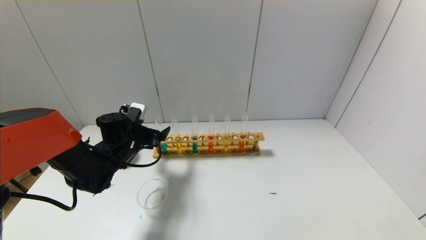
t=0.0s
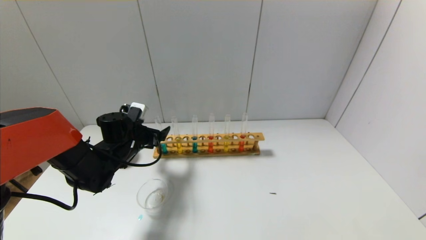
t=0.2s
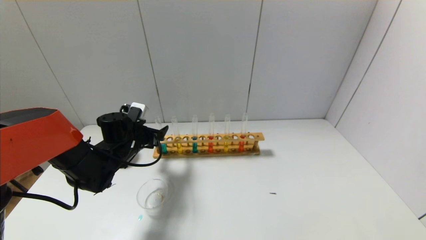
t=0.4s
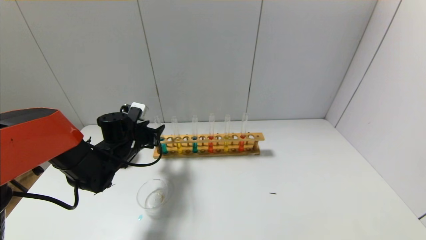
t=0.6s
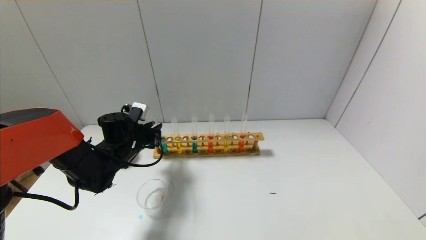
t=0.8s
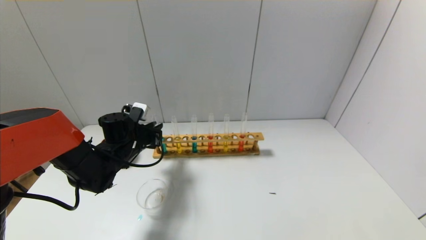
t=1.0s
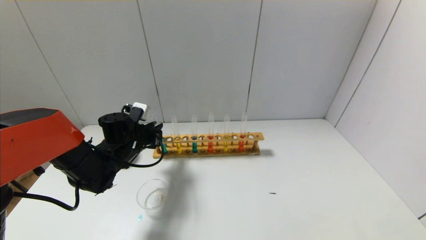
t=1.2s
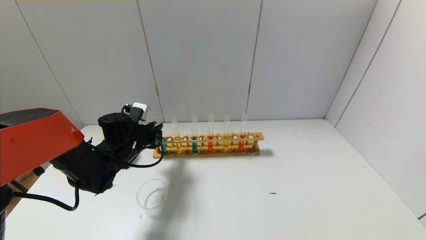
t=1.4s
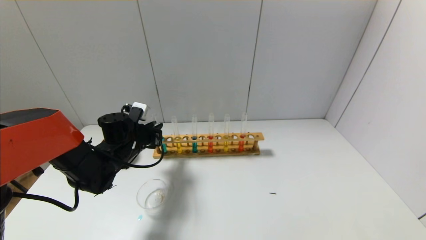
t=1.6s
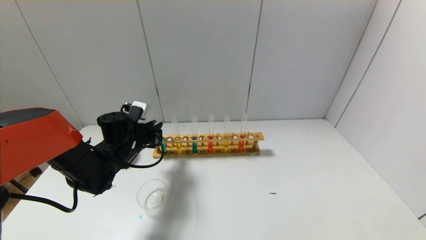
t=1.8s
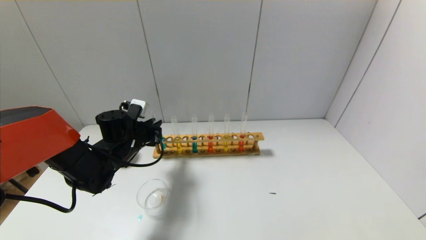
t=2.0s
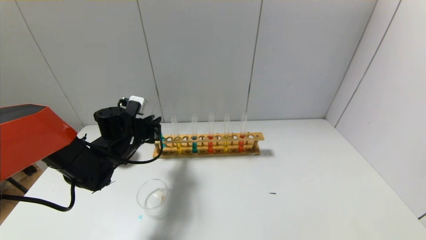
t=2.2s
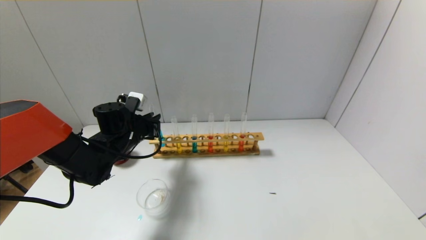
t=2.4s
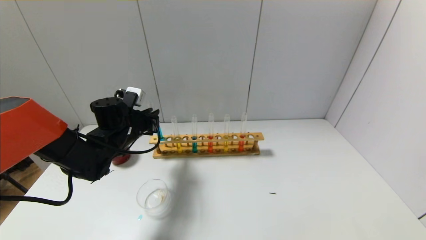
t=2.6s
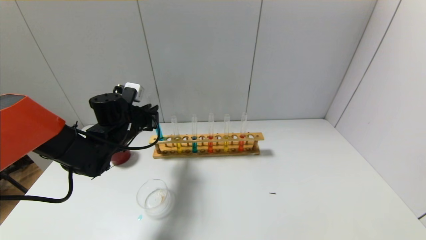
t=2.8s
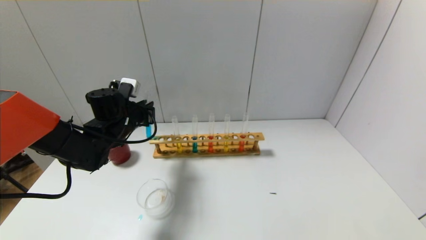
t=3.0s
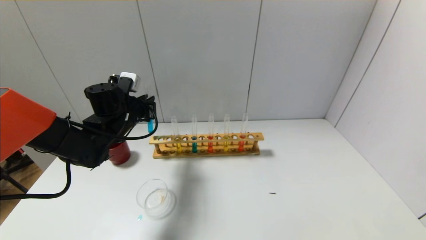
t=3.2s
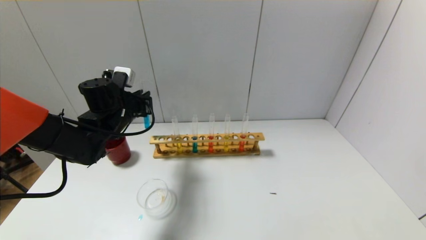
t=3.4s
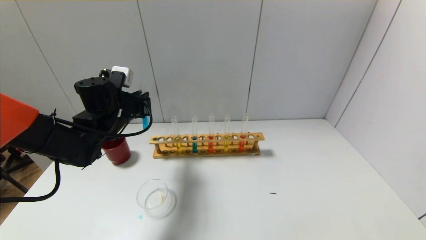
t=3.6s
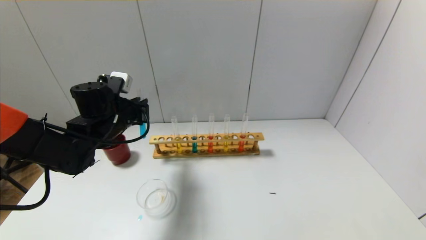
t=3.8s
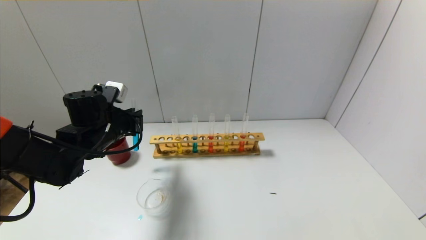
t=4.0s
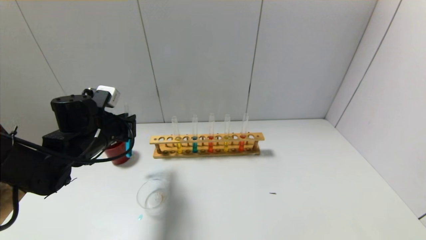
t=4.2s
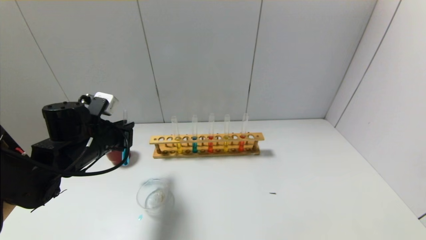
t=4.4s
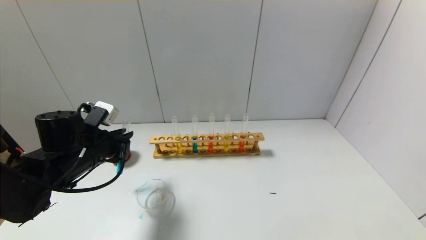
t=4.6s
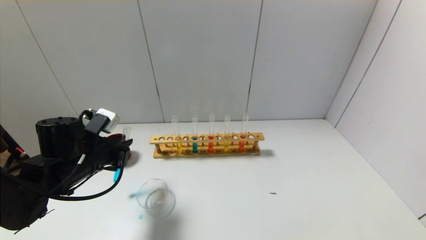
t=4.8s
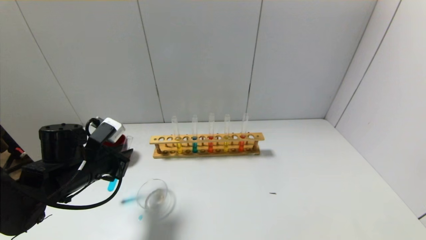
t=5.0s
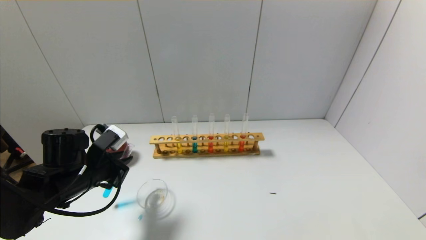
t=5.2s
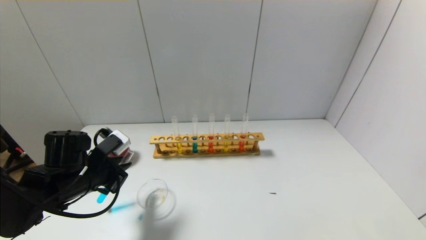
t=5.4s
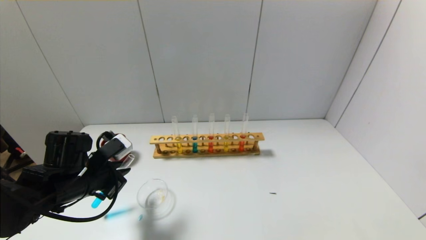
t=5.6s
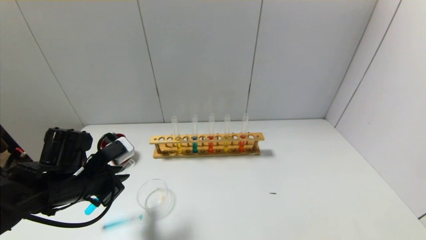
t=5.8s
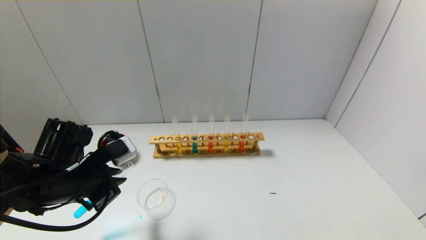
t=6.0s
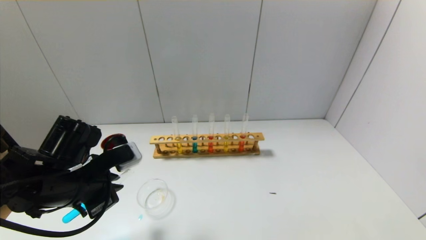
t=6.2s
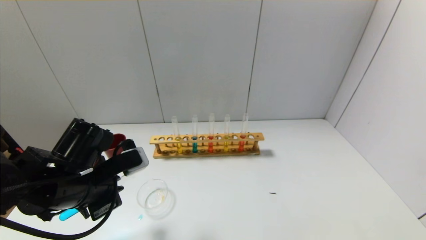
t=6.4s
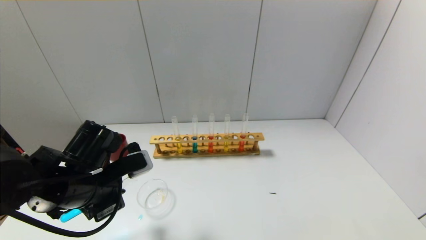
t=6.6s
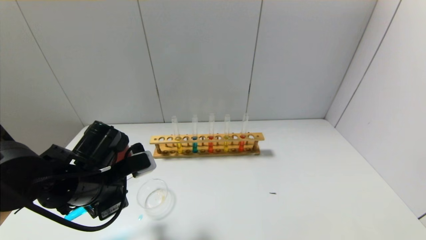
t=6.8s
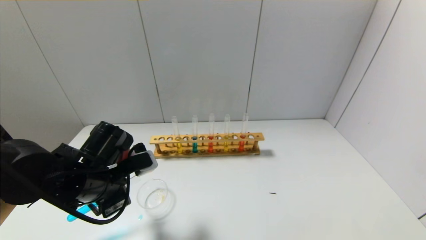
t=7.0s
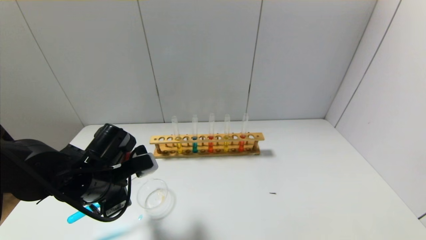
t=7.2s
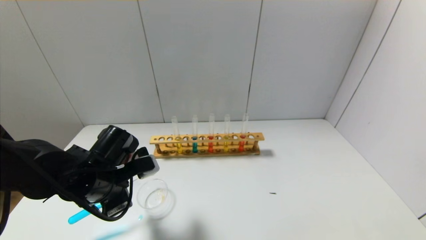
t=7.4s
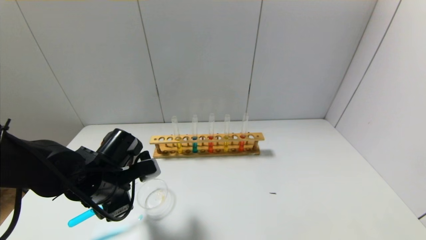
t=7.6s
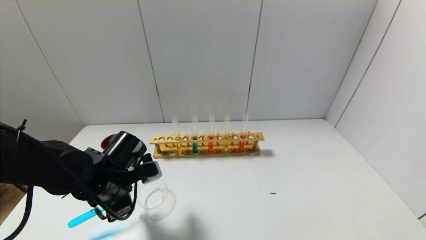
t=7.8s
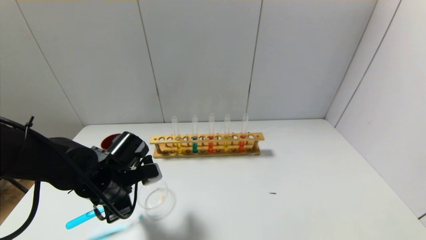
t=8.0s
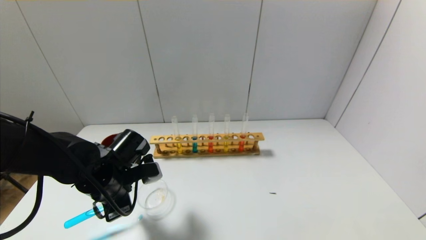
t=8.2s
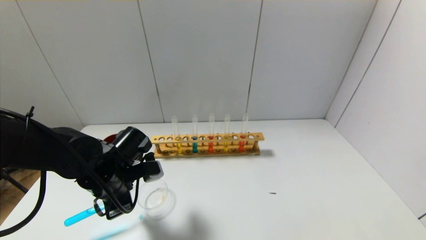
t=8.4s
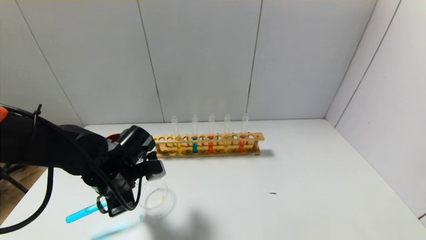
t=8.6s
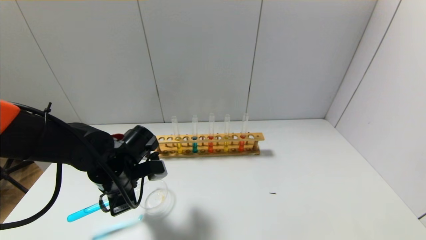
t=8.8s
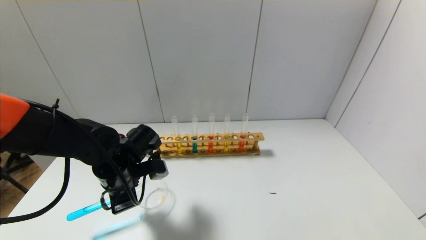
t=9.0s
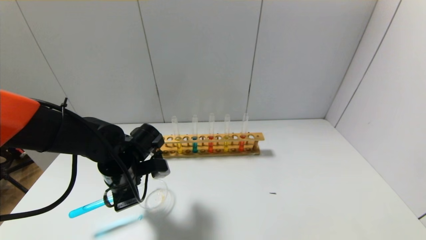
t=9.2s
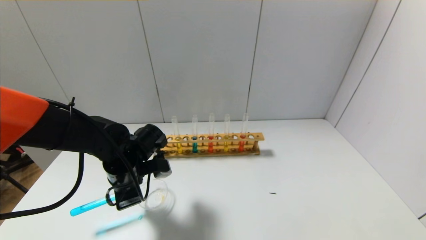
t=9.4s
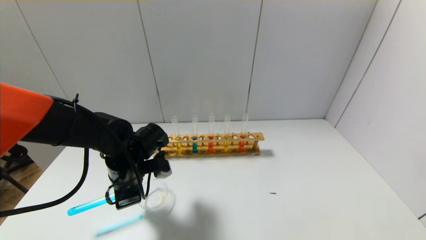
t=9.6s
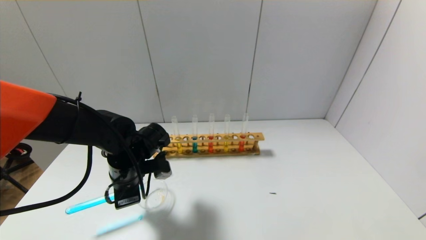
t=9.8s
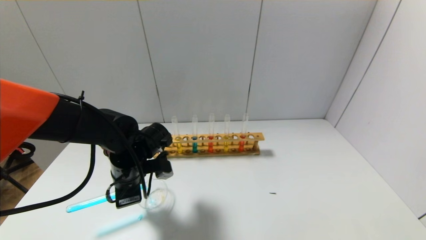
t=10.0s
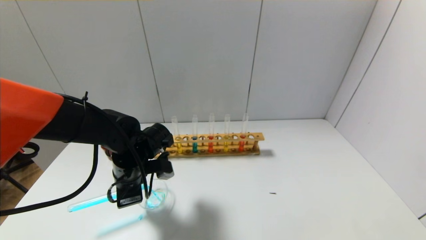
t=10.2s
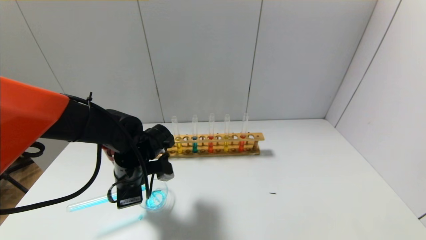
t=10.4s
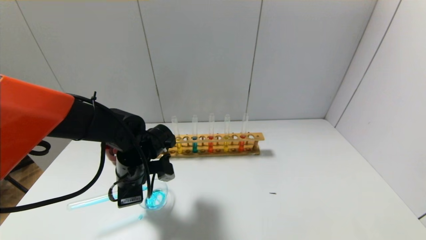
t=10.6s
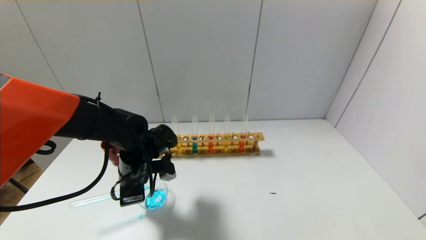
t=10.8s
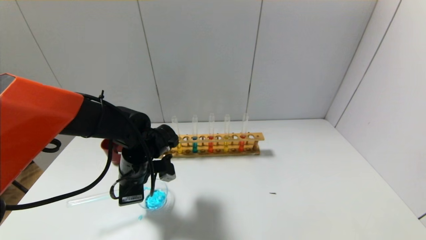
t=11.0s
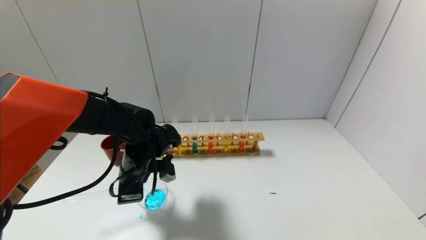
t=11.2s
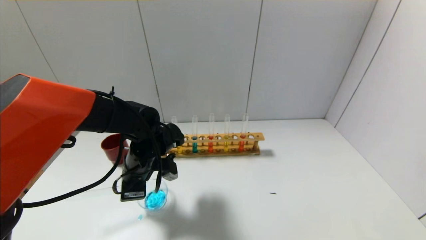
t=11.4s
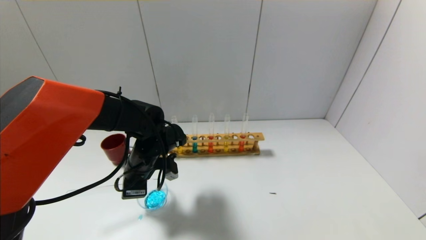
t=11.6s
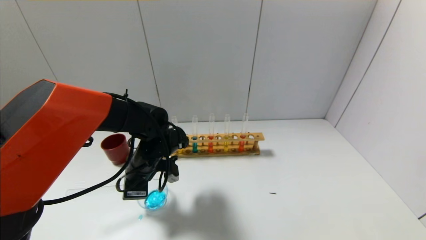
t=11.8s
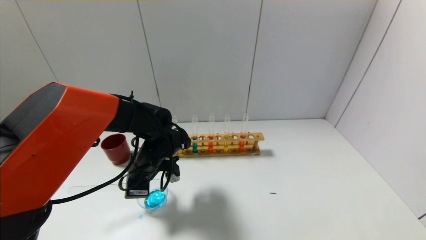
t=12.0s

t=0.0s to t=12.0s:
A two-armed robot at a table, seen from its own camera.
t=0.0s to t=1.6s: The left gripper closes up.
t=1.6s to t=3.0s: The left gripper goes roughly 5 cm upward.
t=3.0s to t=4.4s: The left gripper shifts roughly 10 cm backward.
t=4.4s to t=6.0s: The left gripper heads backward, covering roughly 10 cm.
t=6.0s to t=7.6s: The left gripper shifts by about 5 cm.
t=7.6s to t=9.0s: The grippers move only a little.
t=9.0s to t=10.4s: The grippers move only a little.
t=10.4s to t=12.0s: The grippers stay close to where they were, moving slightly.

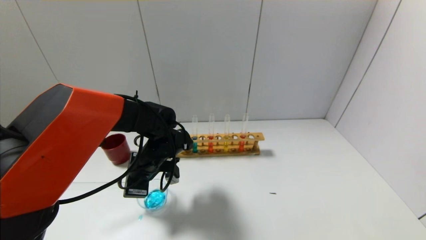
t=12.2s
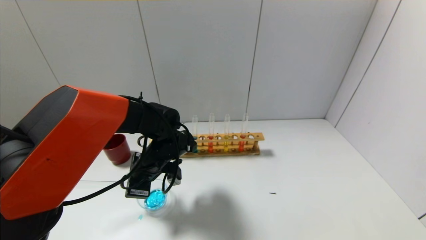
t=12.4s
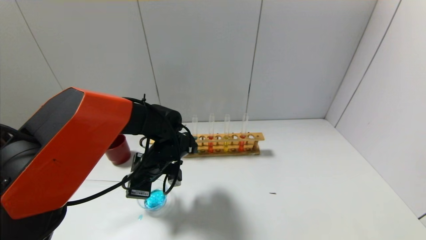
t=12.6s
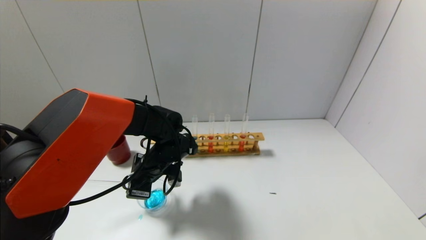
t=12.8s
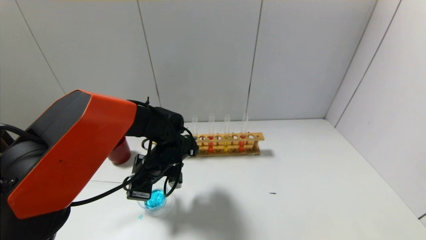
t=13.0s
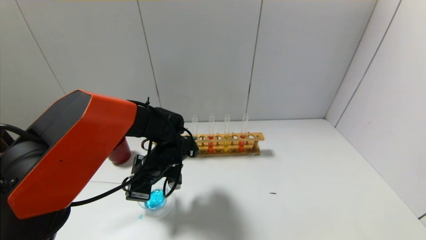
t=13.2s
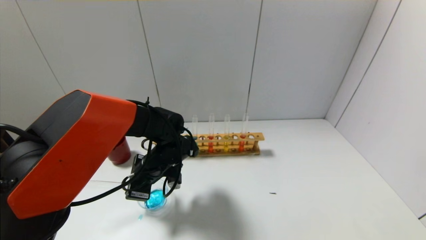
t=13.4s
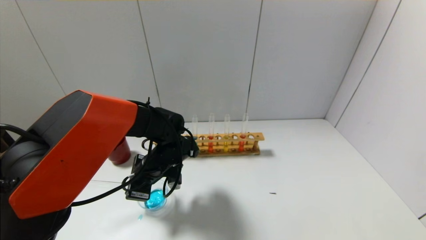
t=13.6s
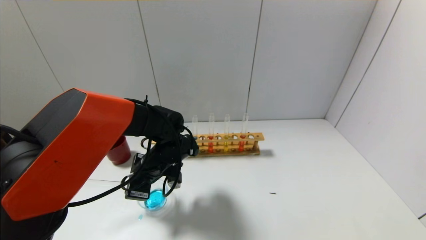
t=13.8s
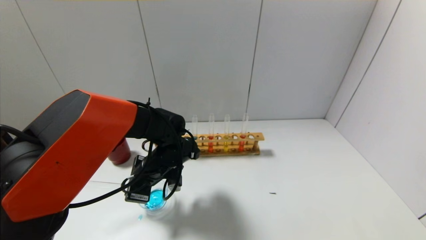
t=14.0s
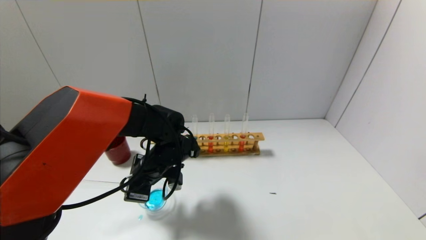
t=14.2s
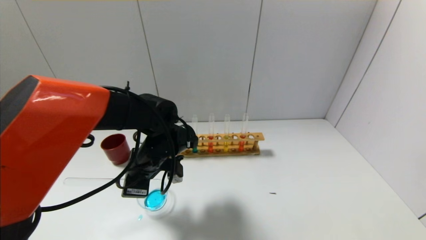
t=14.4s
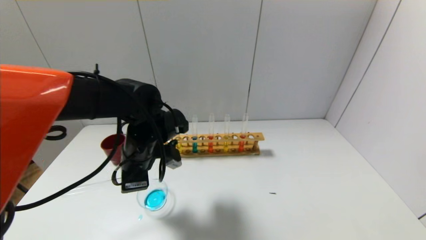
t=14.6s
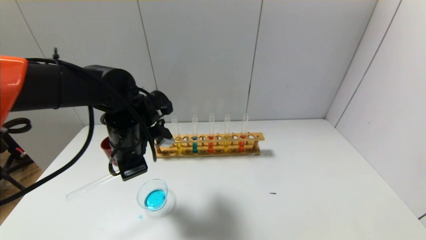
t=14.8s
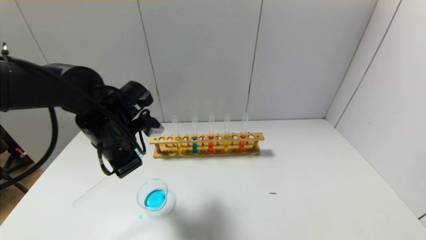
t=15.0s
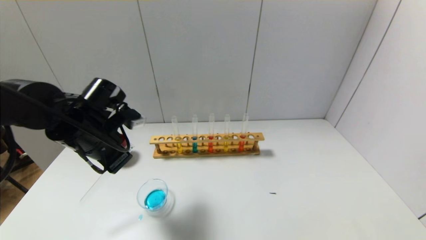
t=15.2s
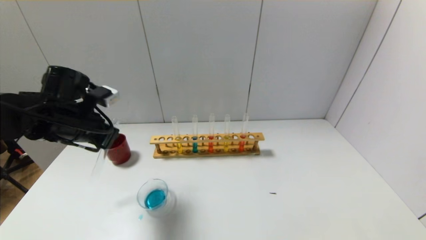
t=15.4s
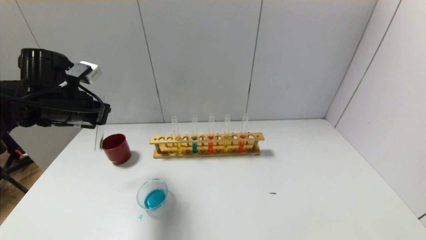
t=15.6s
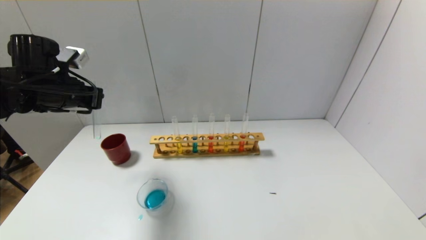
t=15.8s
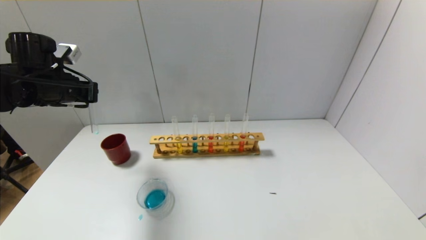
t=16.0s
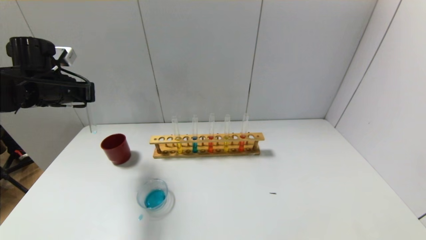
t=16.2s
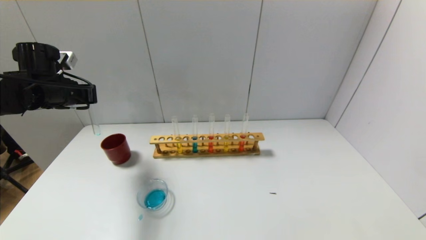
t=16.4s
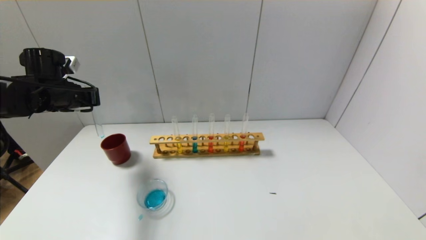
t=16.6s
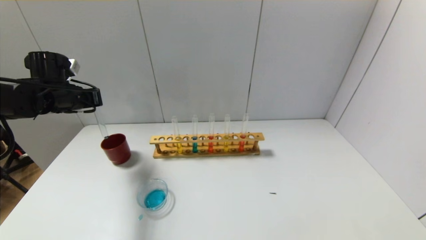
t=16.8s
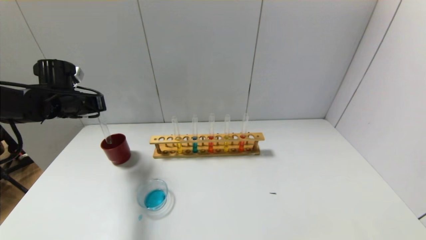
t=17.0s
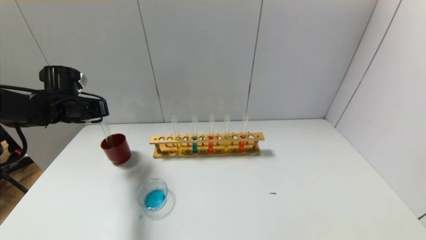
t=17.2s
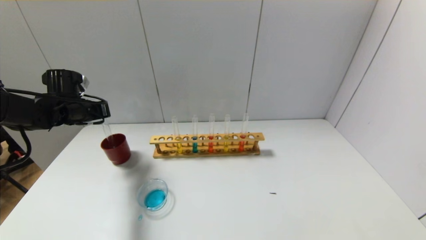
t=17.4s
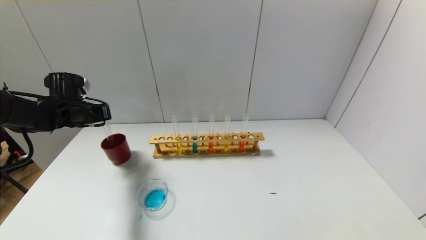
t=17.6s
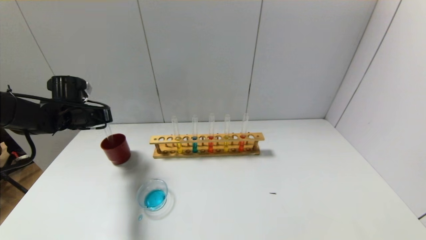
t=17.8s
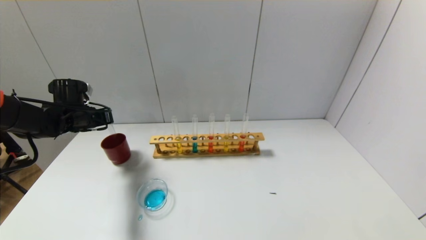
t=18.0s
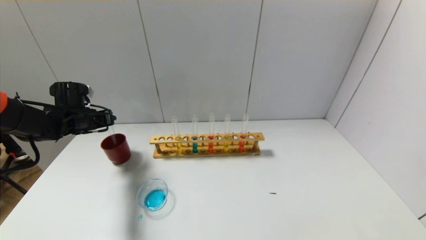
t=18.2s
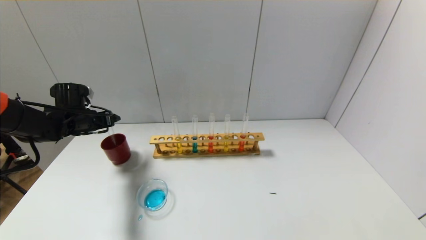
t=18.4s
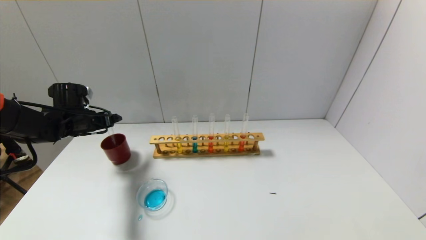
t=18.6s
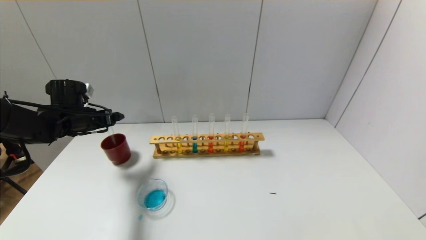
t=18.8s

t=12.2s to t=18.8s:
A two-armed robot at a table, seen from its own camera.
Step, t=12.2s to t=14.6s: Pour the blue reagent into the graduated cylinder with the left gripper.
Step, t=14.8s to t=18.2s: Place the test tube into the brown cup with the left gripper.
t=12.2s to t=13.8s: There are only small adjustments of the grippers.
t=13.8s to t=15.4s: The left gripper travels to the left and upward by about 20 cm.
t=15.4s to t=17.2s: The left gripper goes some 10 cm forward and to the left.
t=17.2s to t=18.8s: The left gripper opens its fingers.
